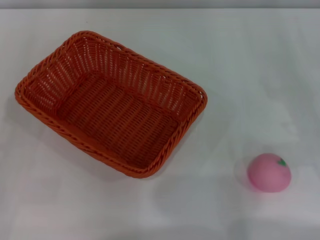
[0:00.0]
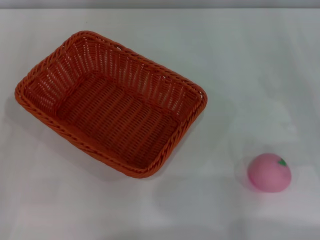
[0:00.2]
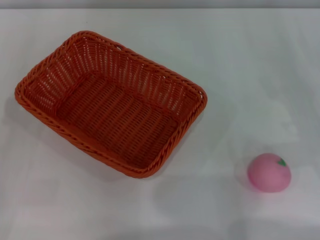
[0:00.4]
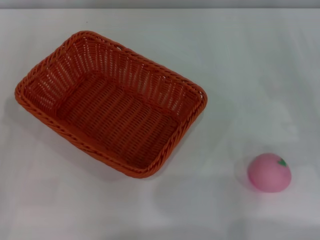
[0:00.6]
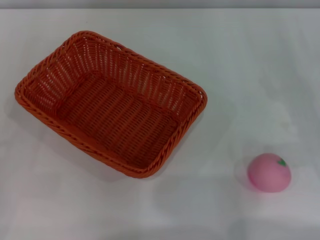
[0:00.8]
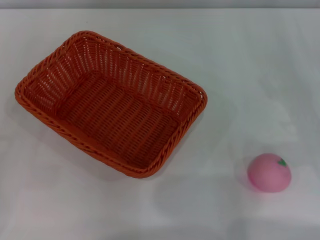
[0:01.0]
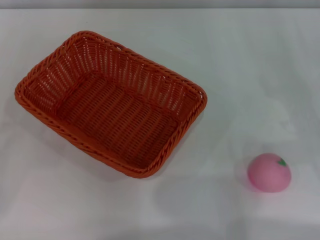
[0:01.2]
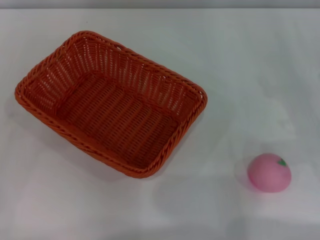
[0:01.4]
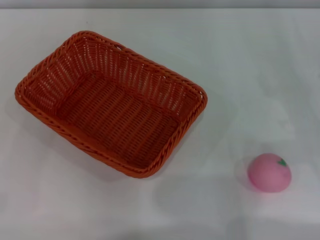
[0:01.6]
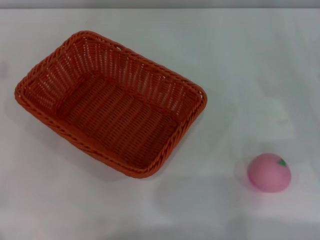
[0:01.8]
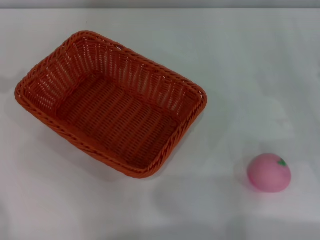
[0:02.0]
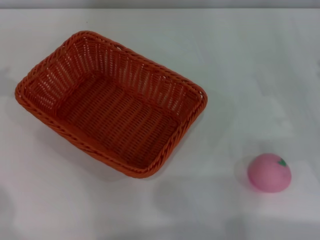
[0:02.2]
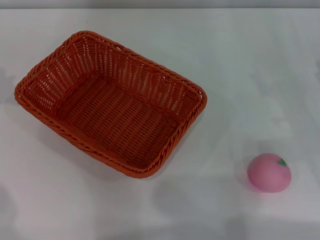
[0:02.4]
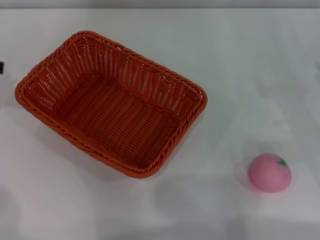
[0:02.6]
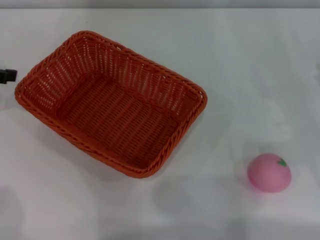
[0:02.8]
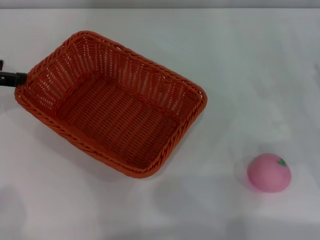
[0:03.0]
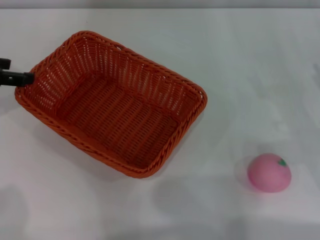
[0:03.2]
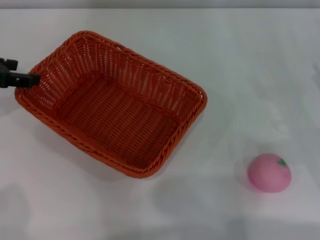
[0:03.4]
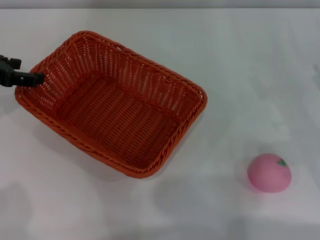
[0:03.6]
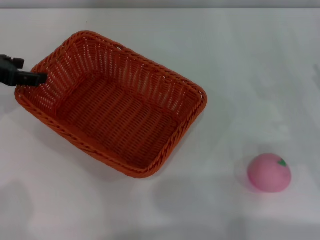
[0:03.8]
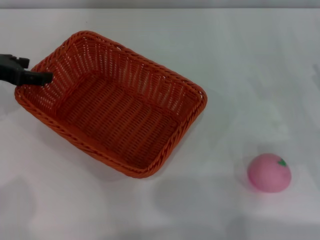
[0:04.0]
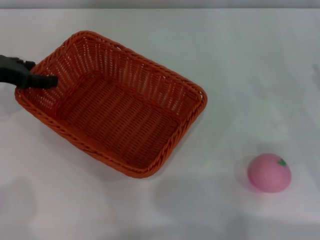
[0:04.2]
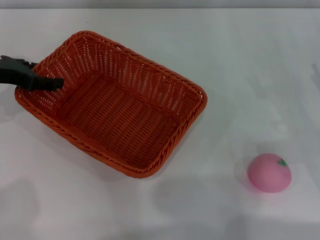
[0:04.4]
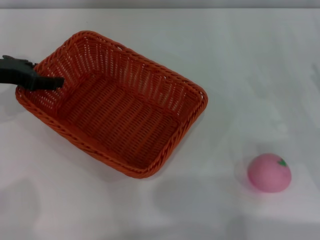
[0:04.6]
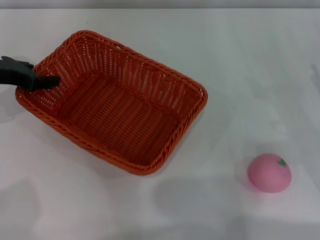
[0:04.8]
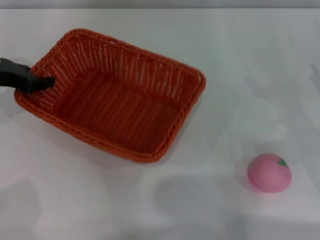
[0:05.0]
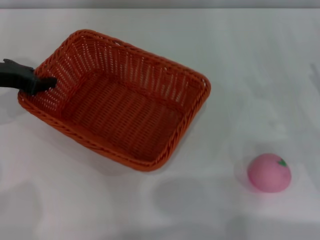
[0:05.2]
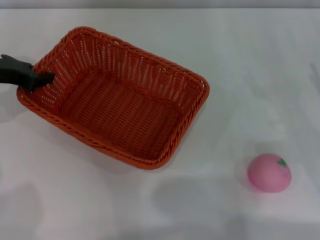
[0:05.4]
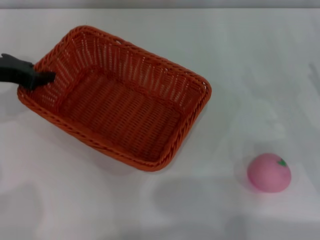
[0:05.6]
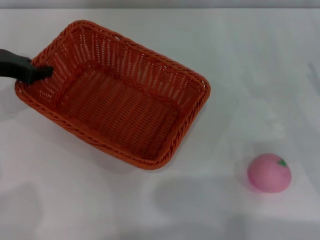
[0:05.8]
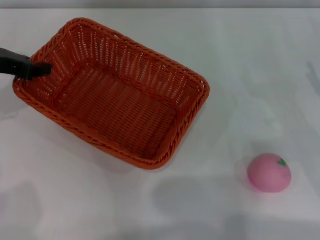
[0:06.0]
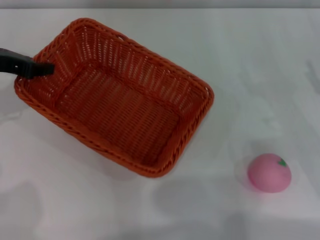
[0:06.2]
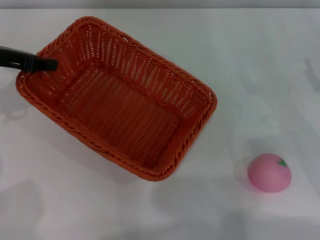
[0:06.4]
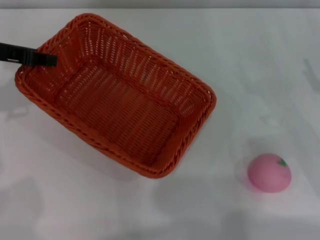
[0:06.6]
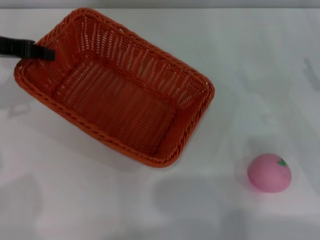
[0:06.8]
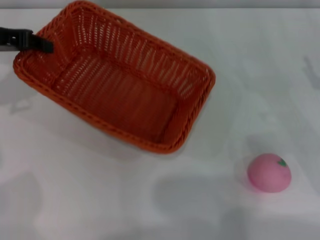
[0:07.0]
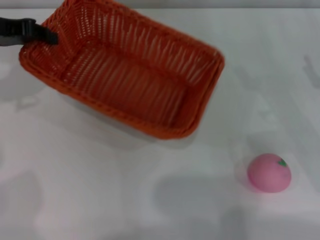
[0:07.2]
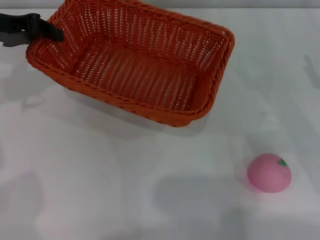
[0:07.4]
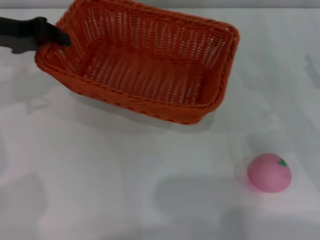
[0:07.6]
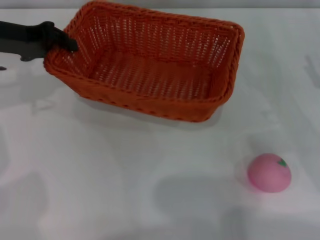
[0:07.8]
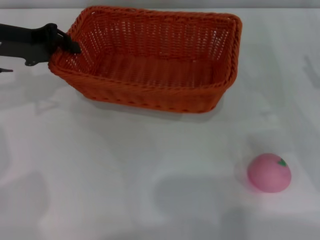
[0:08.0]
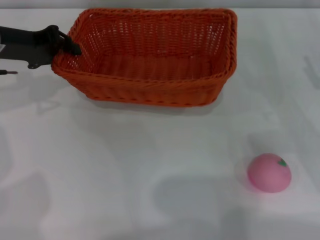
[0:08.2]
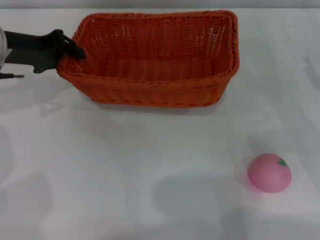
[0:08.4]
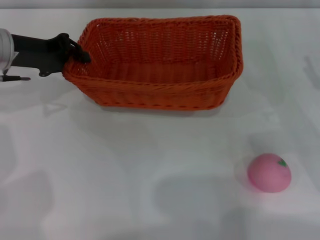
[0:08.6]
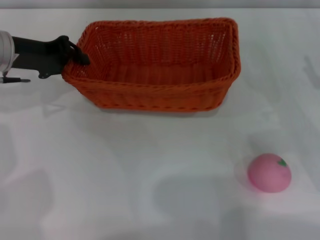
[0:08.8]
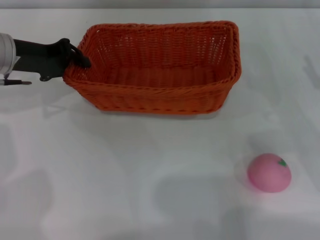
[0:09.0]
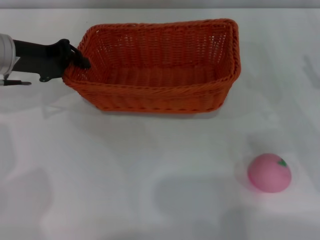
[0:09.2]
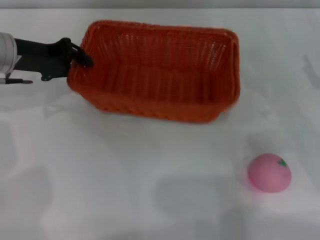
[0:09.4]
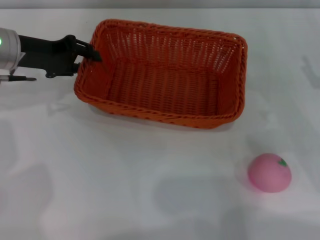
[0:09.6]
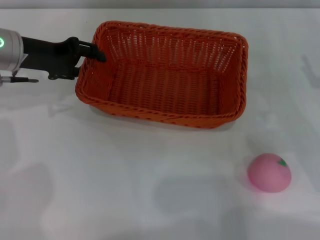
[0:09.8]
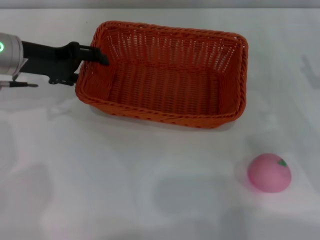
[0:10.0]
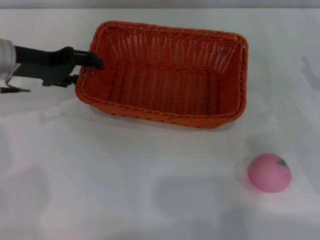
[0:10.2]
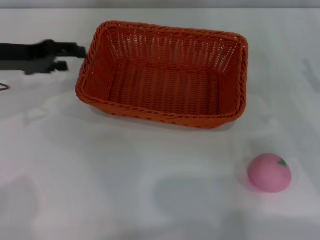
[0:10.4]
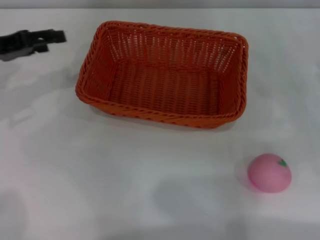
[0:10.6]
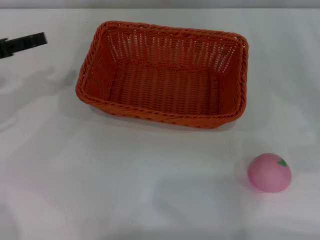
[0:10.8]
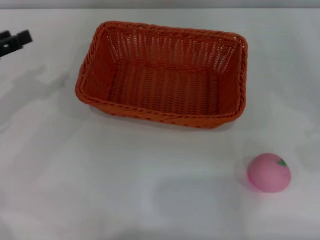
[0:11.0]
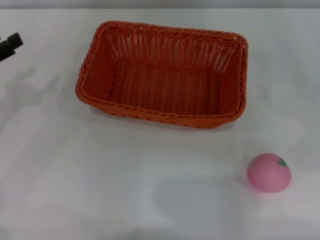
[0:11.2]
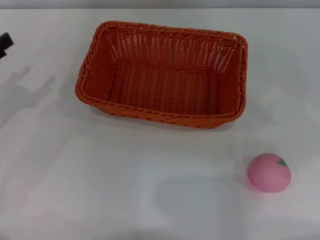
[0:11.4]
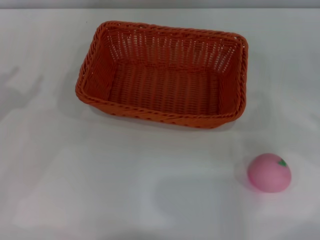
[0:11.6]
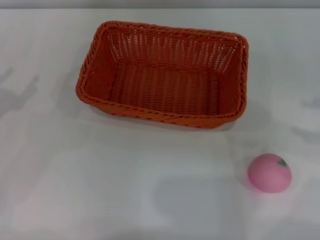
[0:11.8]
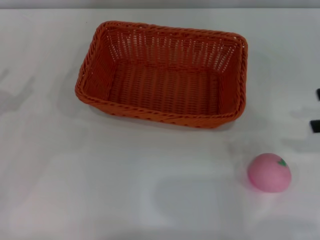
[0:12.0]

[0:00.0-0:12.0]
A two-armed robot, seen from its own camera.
Step, 0:00.0 to 0:05.6: Pick up the light basket with the left gripper.
Step, 0:05.8 to 0:10.2: Place the light basket in the center of view with the right gripper.
0:03.0 to 0:04.4: The left gripper moves some 5 cm.
0:04.4 to 0:06.0: The left gripper closes up.
0:07.6 to 0:09.0: The left gripper goes approximately 5 cm downward.
0:09.0 to 0:10.4: The left gripper opens up.
0:10.4 to 0:12.0: The left gripper heads backward and to the left, covering roughly 15 cm.

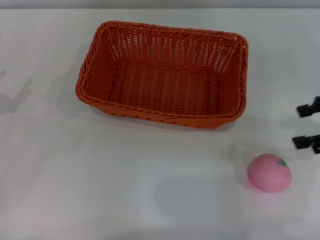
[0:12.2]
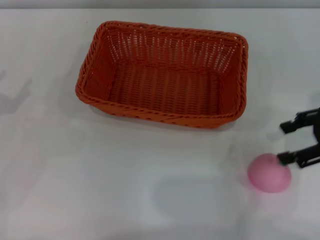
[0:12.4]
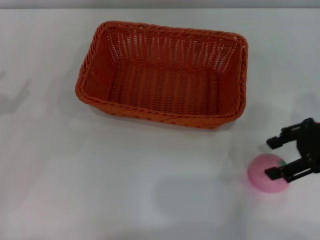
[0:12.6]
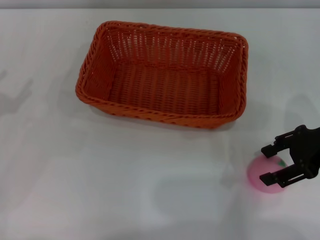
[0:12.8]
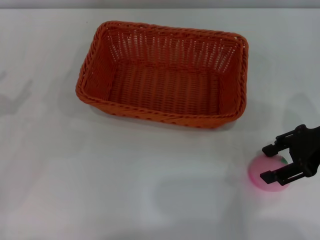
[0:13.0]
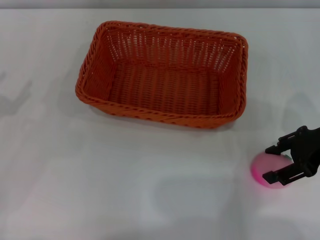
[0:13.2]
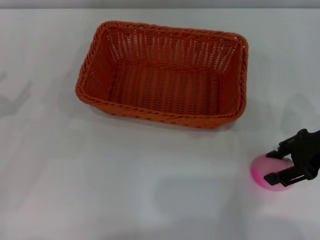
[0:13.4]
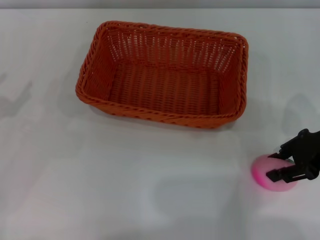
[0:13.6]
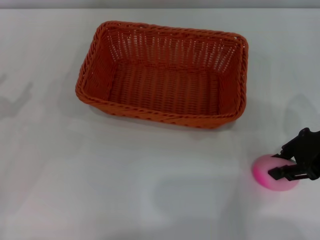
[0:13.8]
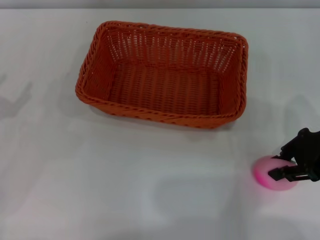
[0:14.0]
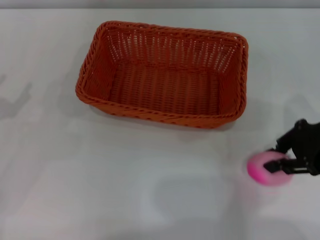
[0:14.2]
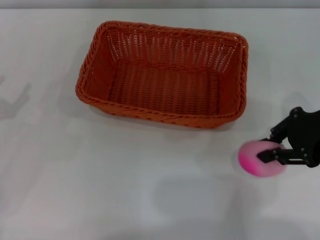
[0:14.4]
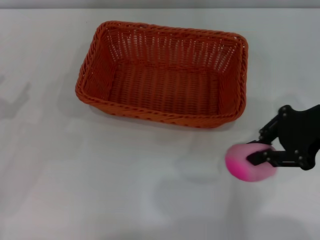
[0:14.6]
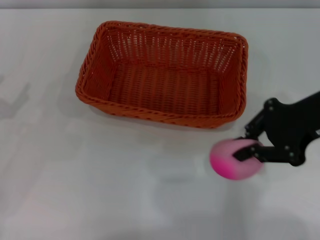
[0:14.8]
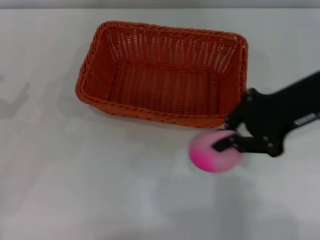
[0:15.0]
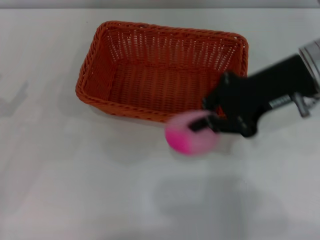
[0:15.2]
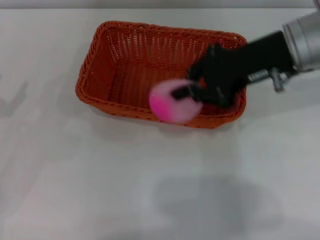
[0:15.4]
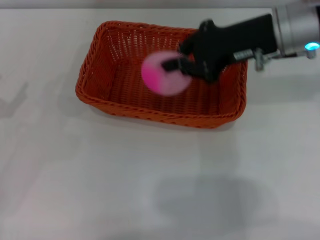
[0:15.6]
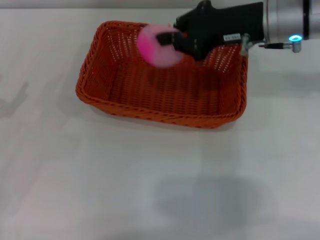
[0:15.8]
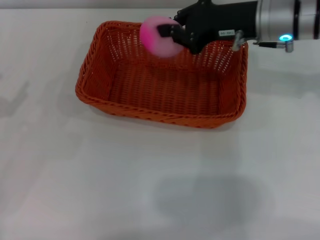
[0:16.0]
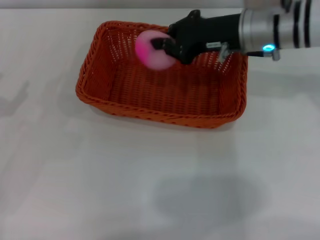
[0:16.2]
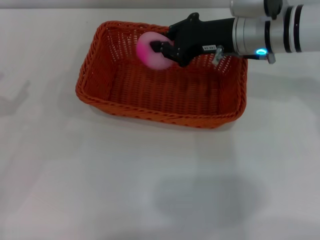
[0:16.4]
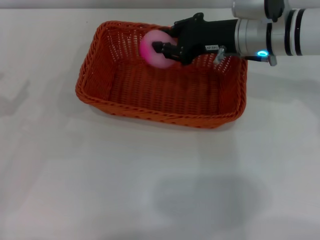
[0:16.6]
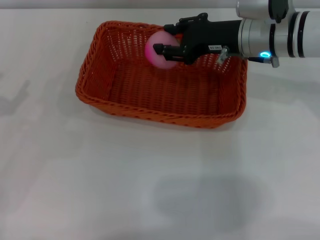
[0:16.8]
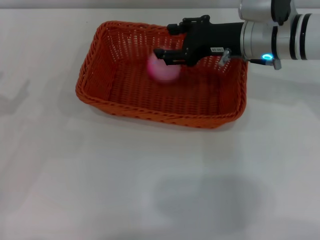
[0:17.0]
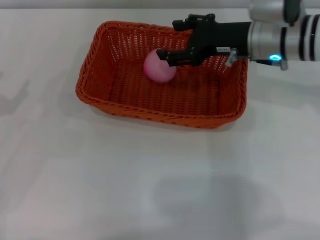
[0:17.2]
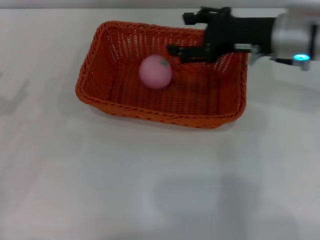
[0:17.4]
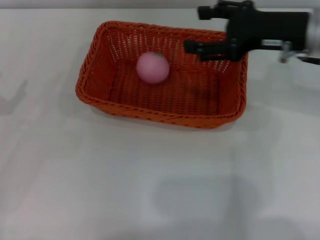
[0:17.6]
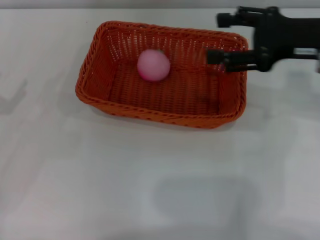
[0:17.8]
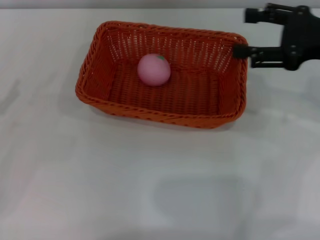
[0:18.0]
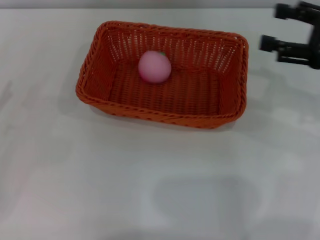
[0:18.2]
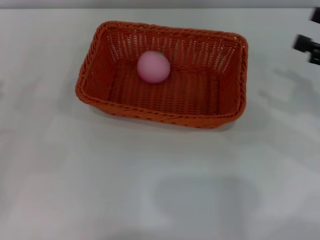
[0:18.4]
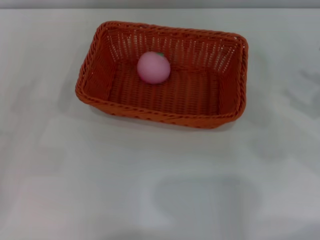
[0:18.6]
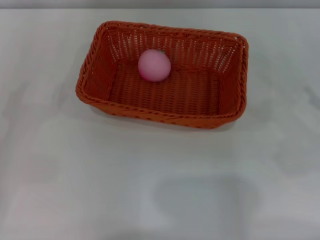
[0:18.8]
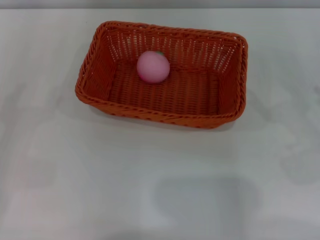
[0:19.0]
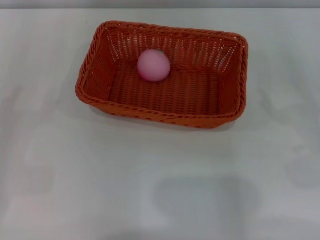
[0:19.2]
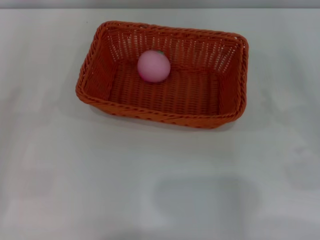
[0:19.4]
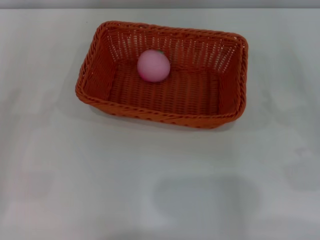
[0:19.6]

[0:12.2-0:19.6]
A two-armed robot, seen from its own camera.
0:12.2 to 0:13.6: The right gripper is displaced downward and to the left by some 5 cm.
0:13.6 to 0:15.2: The right gripper goes roughly 10 cm to the left and upward, and closes up.
0:15.2 to 0:16.6: The right gripper travels forward and downward by approximately 10 cm.
0:16.6 to 0:18.2: The right gripper travels to the right and backward by some 20 cm, and opens its fingers.
0:18.2 to 0:19.6: The right gripper heads downward, backward and to the right, covering approximately 15 cm.

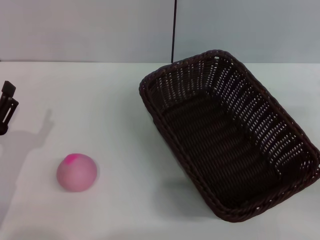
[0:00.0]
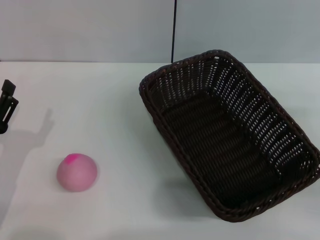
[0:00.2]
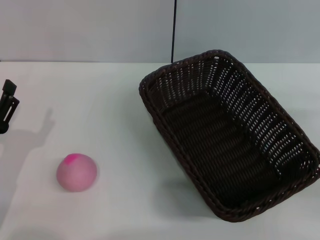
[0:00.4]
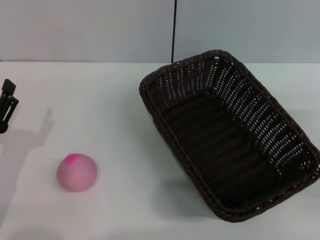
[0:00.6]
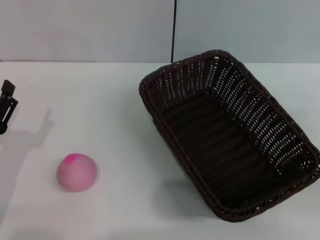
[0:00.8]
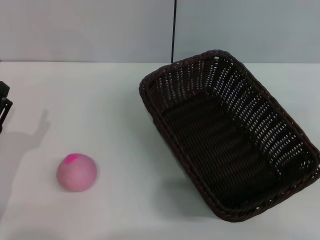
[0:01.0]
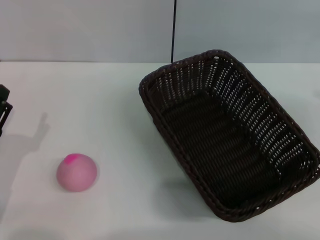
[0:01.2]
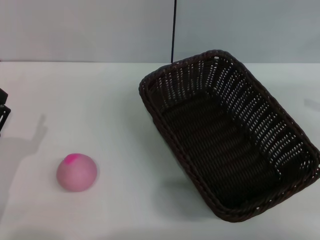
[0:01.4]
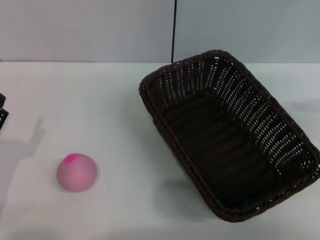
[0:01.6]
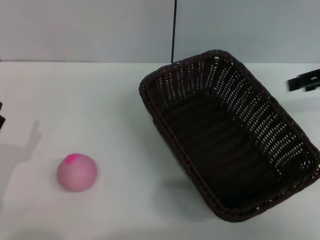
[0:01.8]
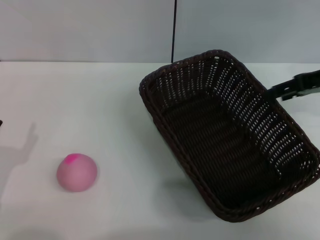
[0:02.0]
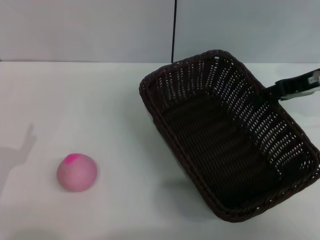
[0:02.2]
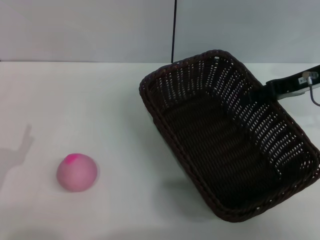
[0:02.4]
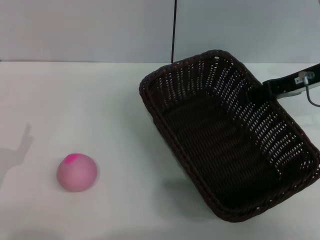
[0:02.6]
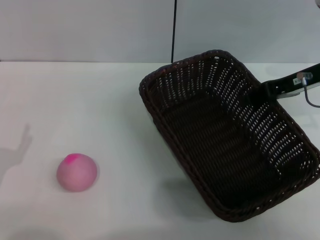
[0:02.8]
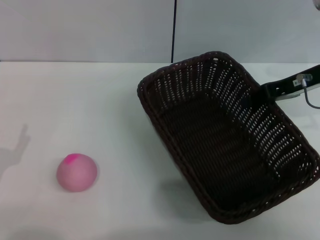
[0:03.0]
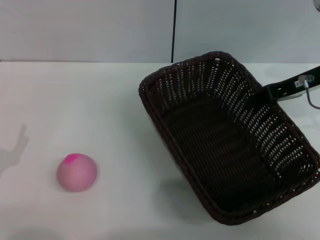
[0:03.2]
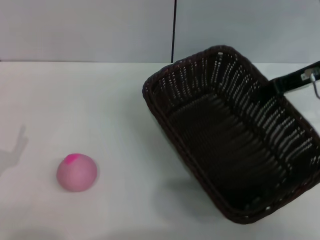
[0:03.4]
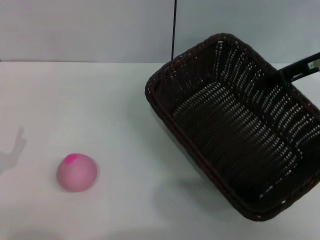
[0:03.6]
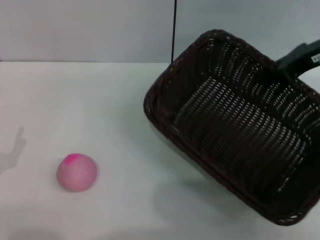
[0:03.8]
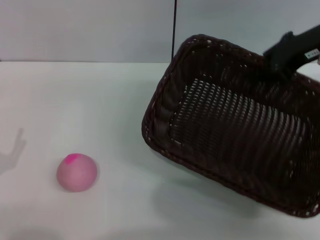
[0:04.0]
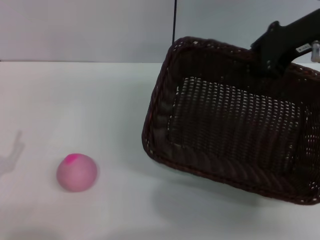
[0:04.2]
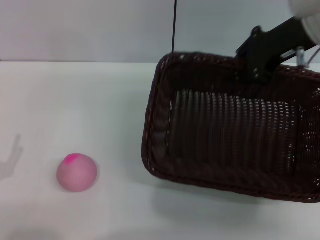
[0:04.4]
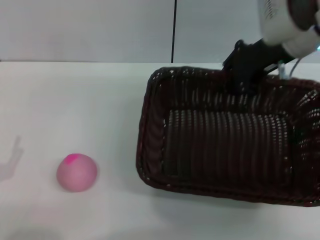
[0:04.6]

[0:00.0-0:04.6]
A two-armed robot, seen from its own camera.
Step, 0:00.0 to 0:03.8: Pick up the dark basket with the right gripper.
0:00.0 to 0:01.6: The right gripper goes some 20 cm upward and forward.
0:01.6 to 0:03.0: The right gripper is displaced to the left and downward by about 15 cm, and closes its fingers.
0:03.0 to 0:04.6: The right gripper heads to the left, covering some 10 cm, and closes.
